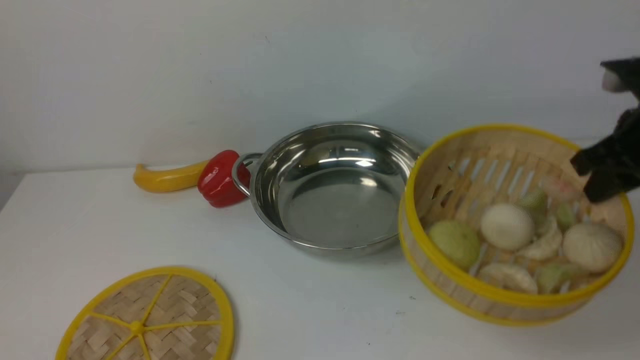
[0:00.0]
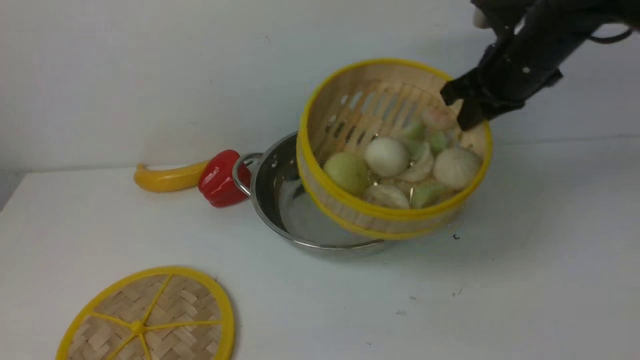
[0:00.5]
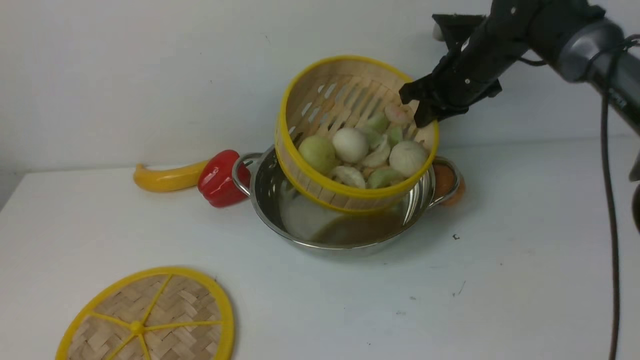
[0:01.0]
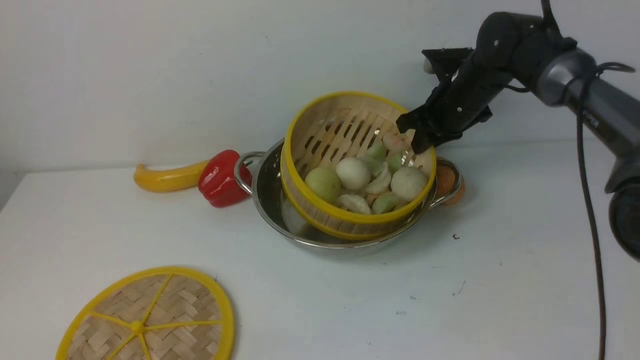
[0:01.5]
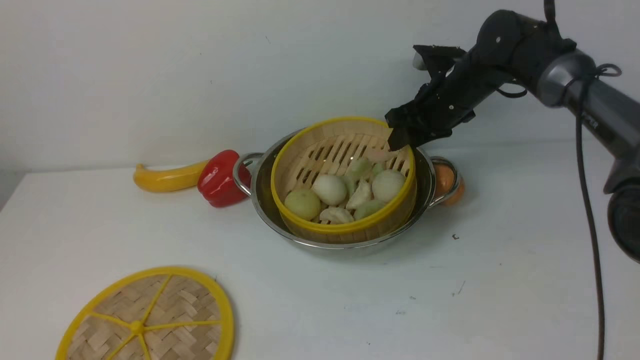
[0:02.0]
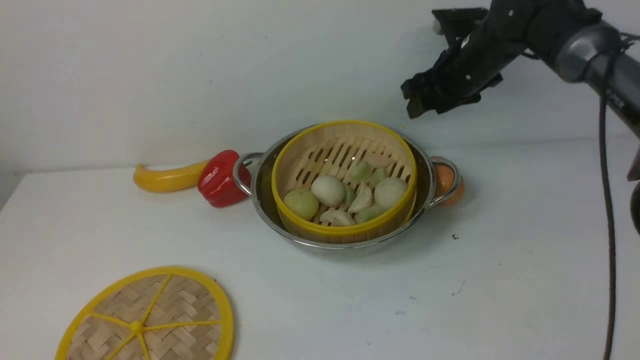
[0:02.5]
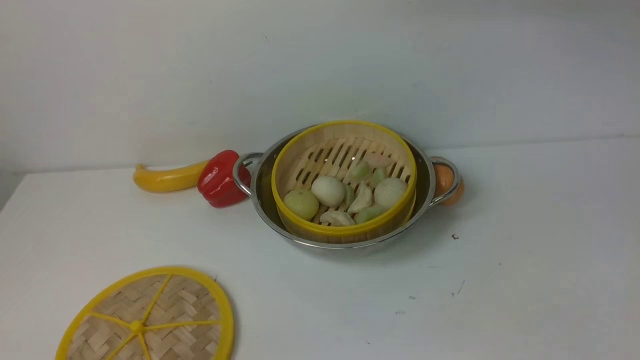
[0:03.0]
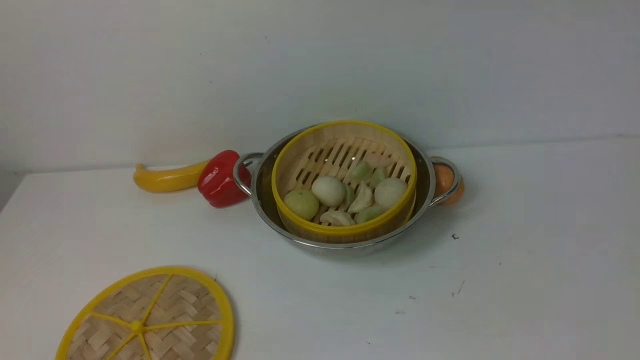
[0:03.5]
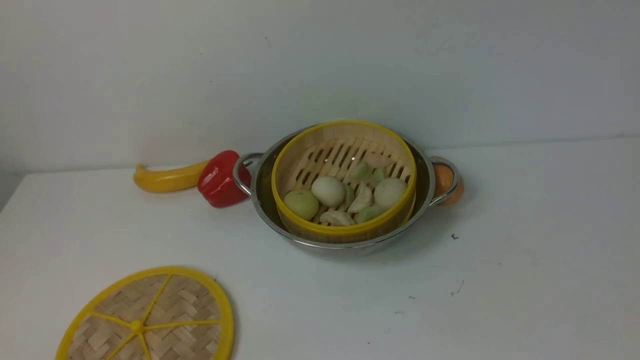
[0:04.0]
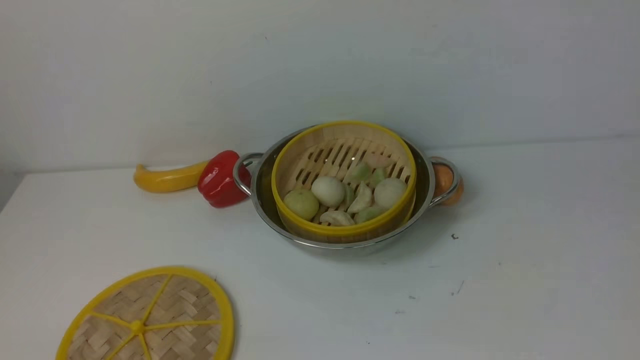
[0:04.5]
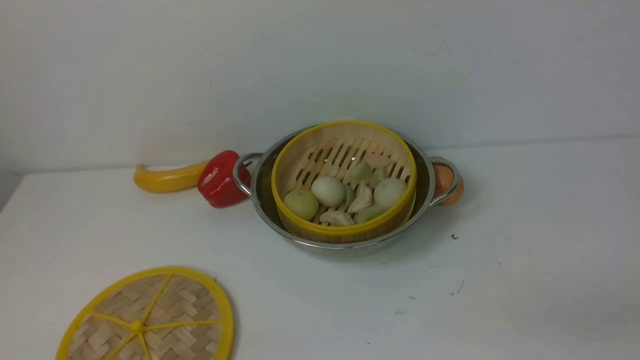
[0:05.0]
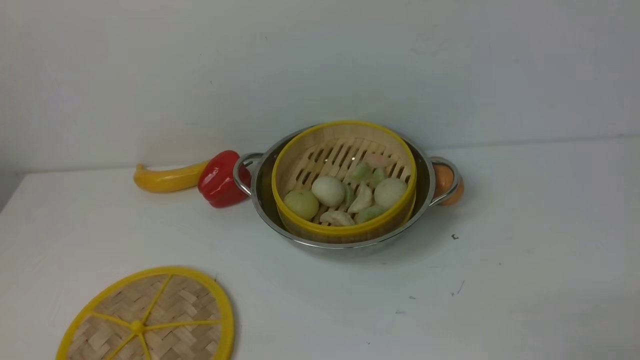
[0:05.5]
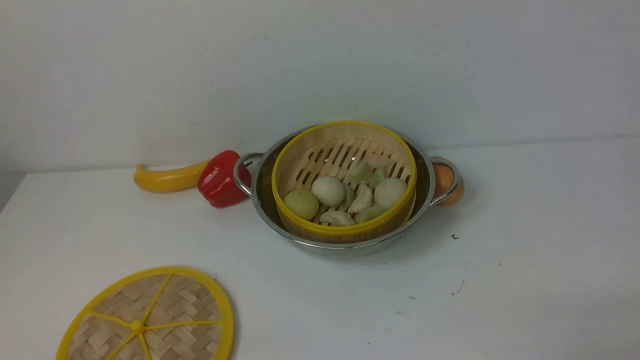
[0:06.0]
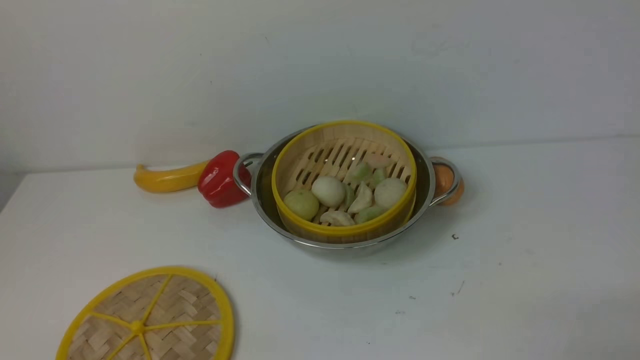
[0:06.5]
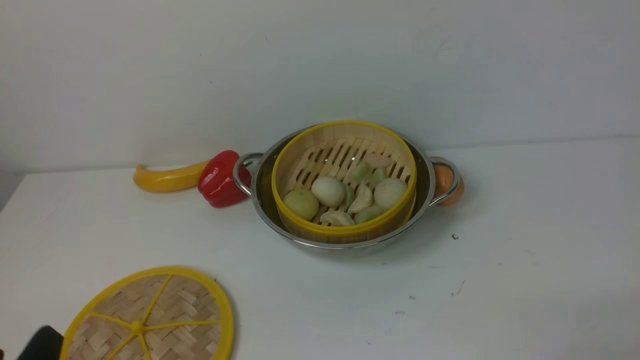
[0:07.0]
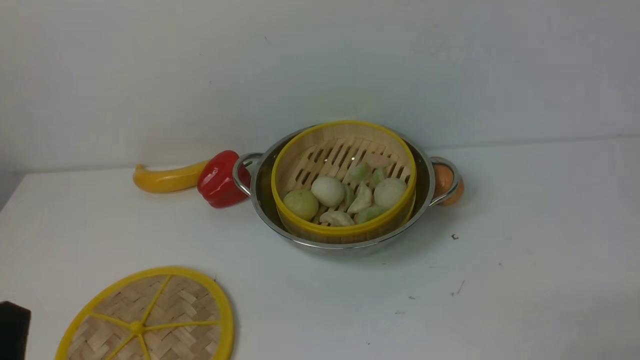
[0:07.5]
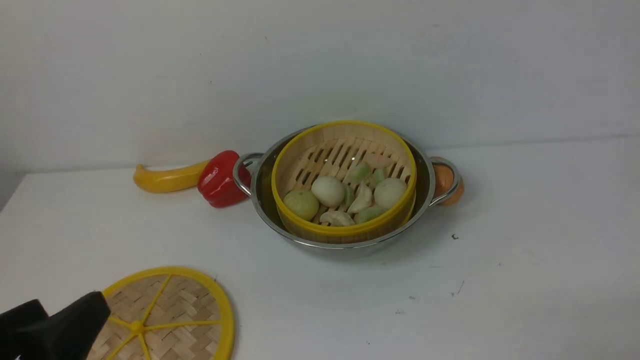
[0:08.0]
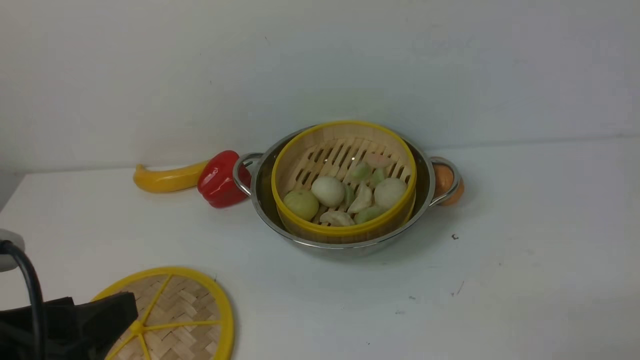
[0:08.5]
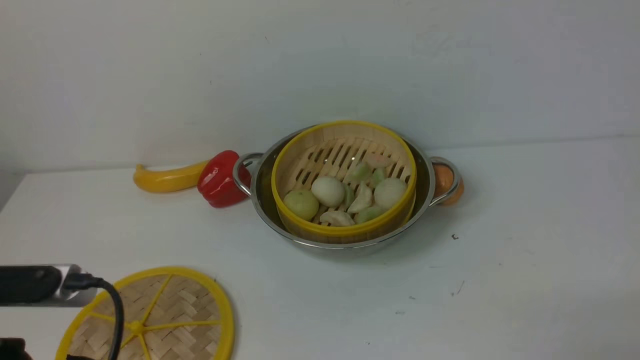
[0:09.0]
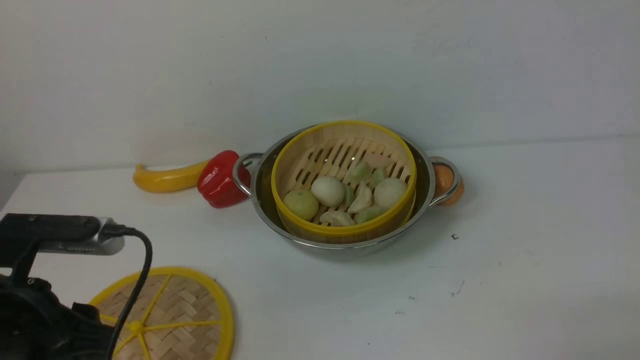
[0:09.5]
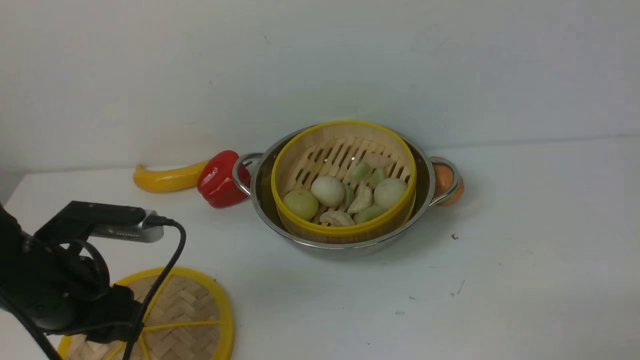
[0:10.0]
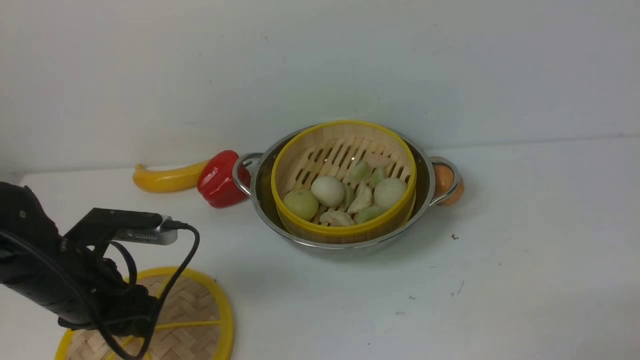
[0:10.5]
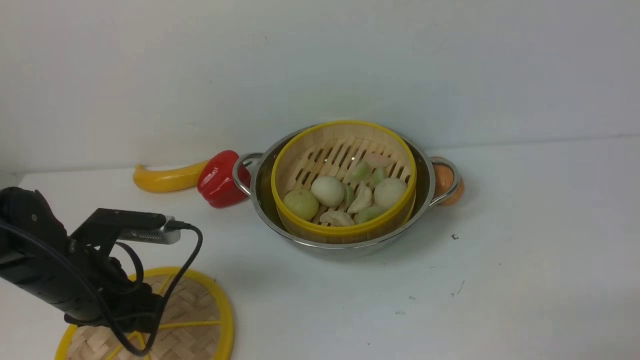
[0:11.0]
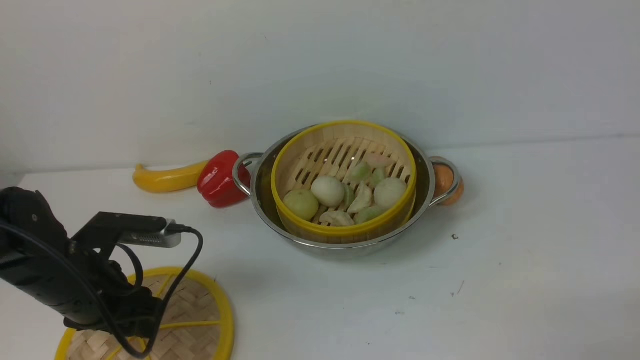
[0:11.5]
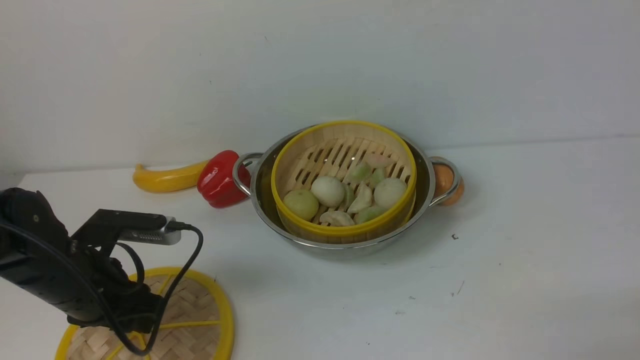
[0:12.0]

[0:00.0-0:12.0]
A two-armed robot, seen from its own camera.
Task of the whole recording: place the steamer in the pot on the white table, and put the lid on the steamer.
Step, 0:00.5 to 0:03.0: use the right arm to put the steamer into the iron steamer pot in the middle.
0:00.0 to 0:02.0: The right gripper moves forward, to the left and downward, approximately 25 cm, and opens up.
0:02.0 to 0:04.0: The right gripper travels upward and backward by some 50 cm, and closes.
0:06.0 to 0:08.0: The left gripper shifts some 10 cm upward.
0:08.0 to 0:10.0: The left gripper goes approximately 15 cm forward, and closes.
0:10.0 to 0:12.0: The left gripper shifts about 5 cm downward.

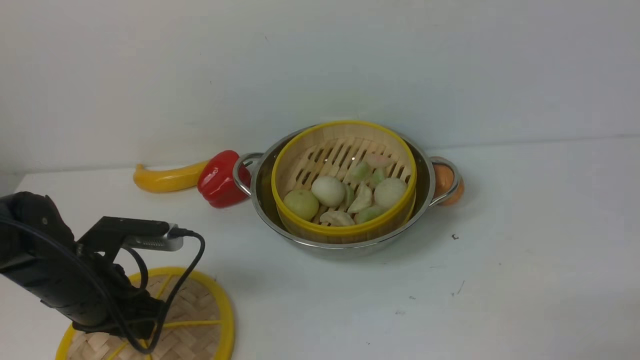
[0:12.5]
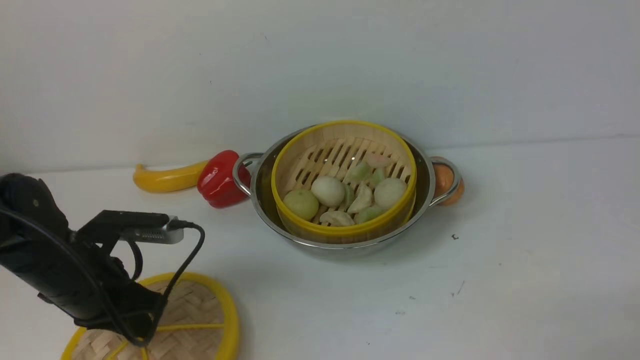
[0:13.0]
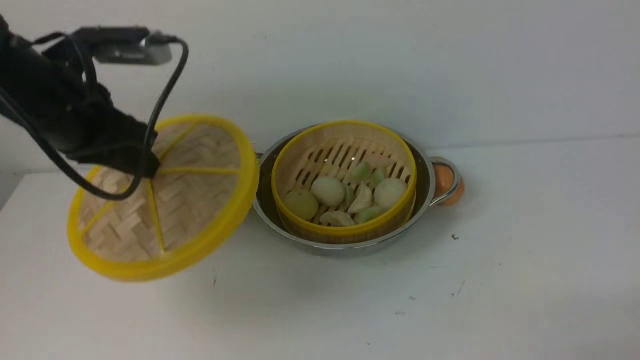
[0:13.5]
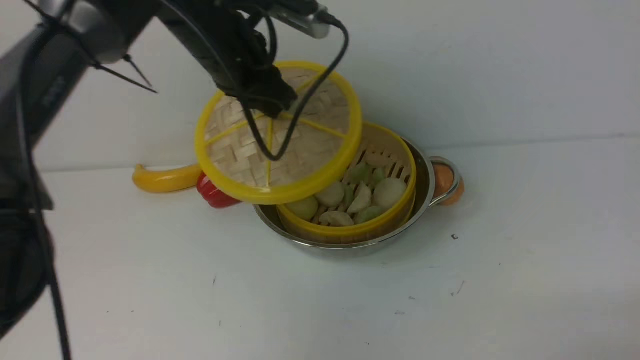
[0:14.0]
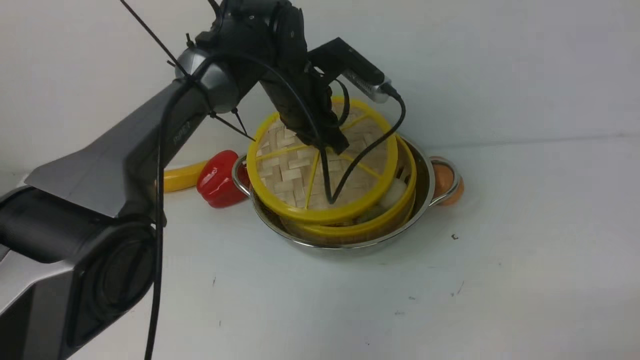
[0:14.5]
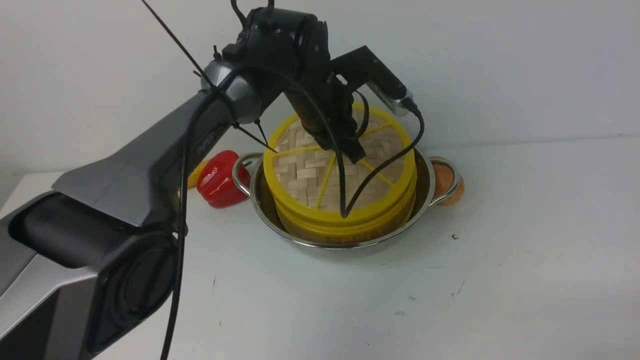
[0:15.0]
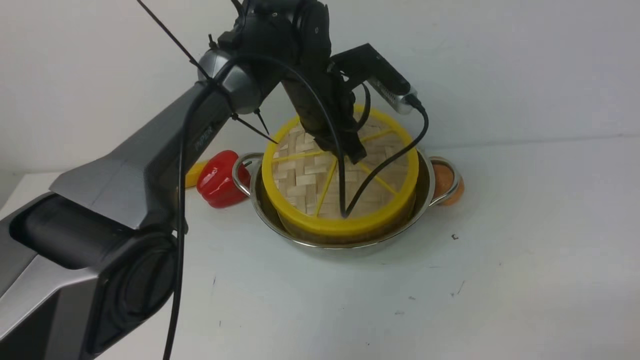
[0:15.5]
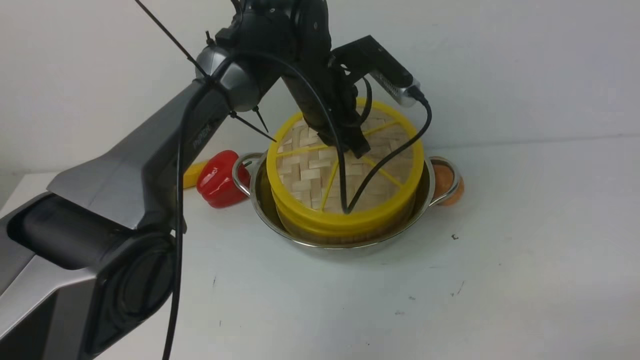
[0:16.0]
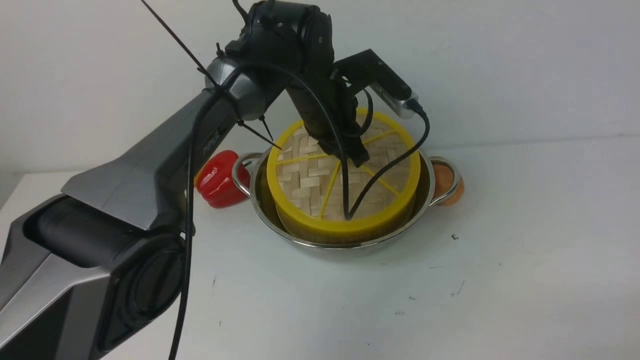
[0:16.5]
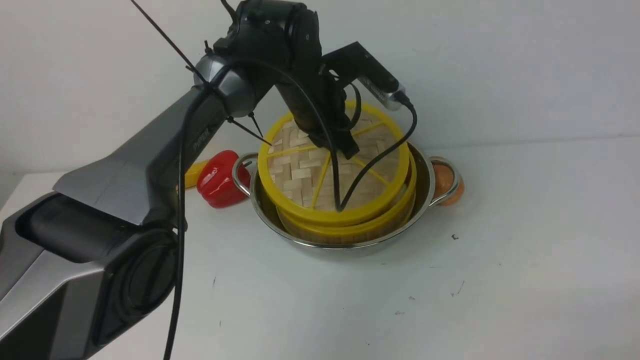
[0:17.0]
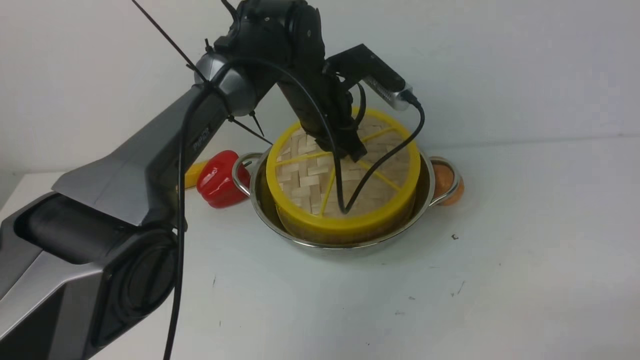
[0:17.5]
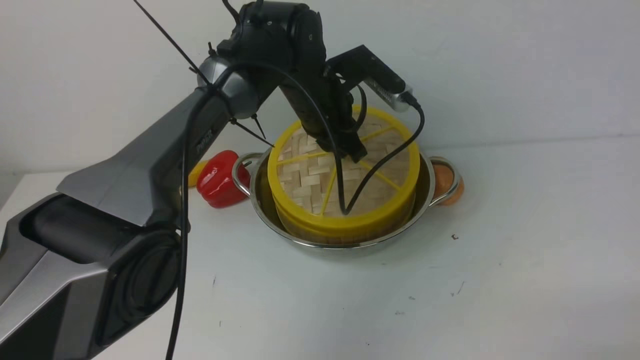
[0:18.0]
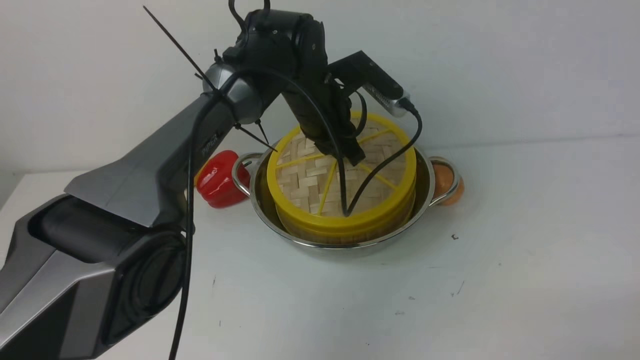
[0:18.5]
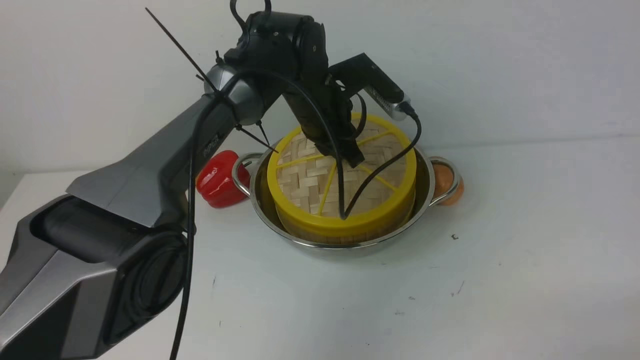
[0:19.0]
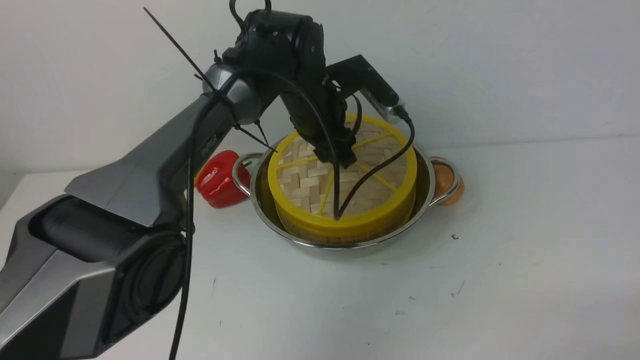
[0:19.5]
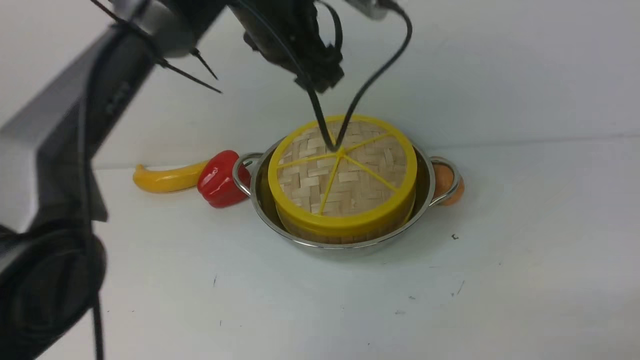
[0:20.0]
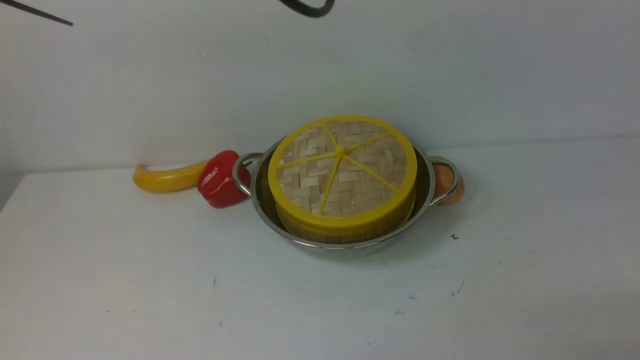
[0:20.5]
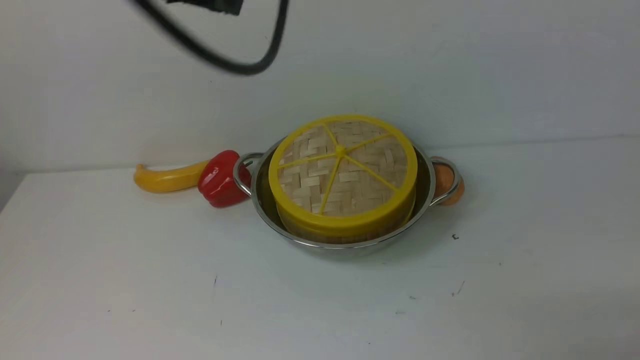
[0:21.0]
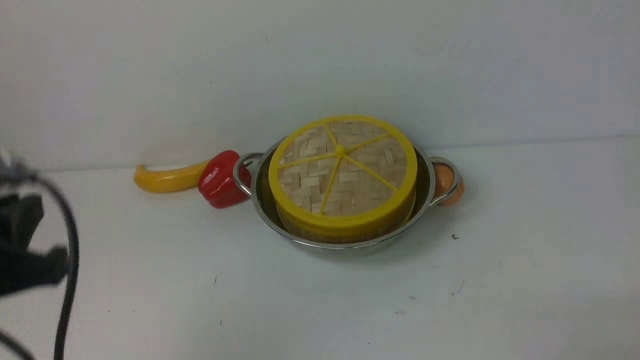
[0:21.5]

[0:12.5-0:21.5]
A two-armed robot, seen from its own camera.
Task of the whole recording: place the steamer in the pot on the white table, and put the lid on the steamer.
Step, 0:13.5 to 0:20.0: use the left arm to place the steamer lid on the steamer.
0:12.5 to 0:14.5: The left gripper travels to the right, forward and upward by about 30 cm.
0:14.5 to 0:17.0: The grippers move only a little.
0:17.0 to 0:19.5: The left gripper opens its fingers.
0:19.5 to 0:21.5: The left gripper goes approximately 40 cm backward and to the left, and closes up.
